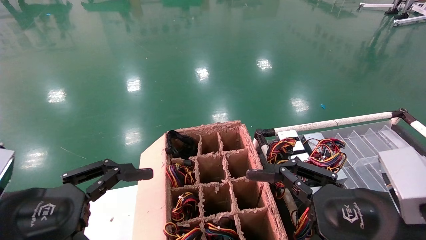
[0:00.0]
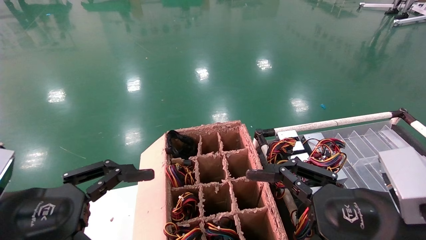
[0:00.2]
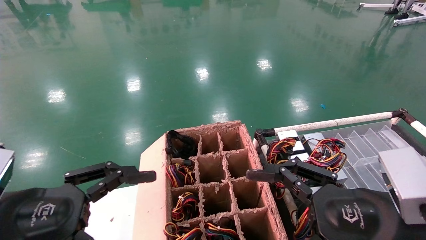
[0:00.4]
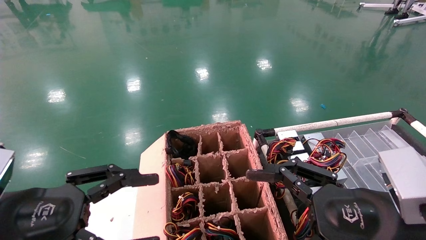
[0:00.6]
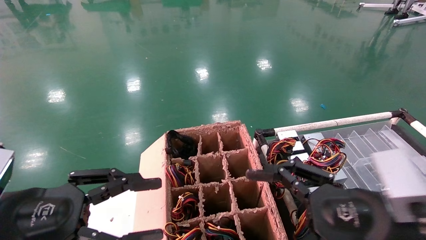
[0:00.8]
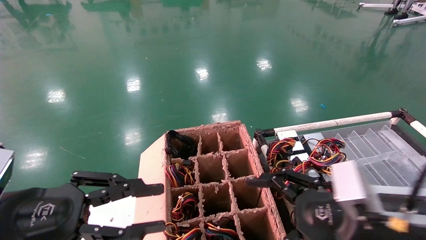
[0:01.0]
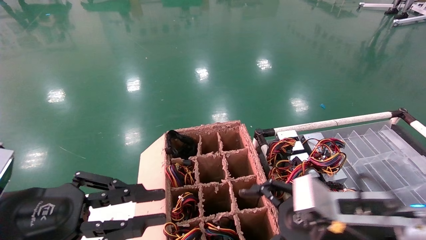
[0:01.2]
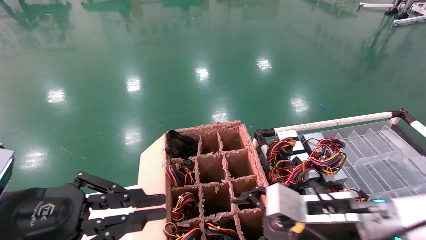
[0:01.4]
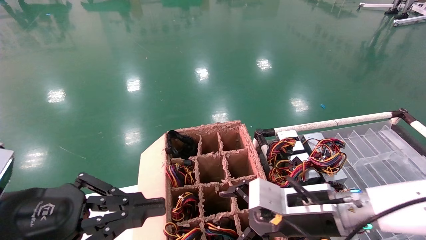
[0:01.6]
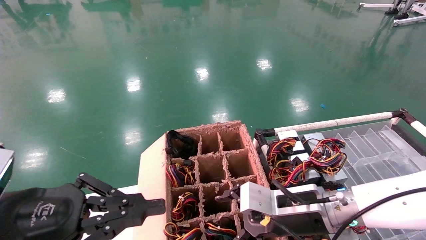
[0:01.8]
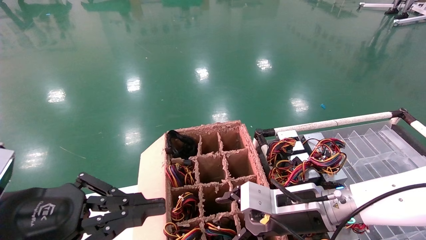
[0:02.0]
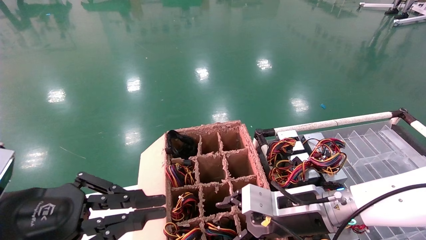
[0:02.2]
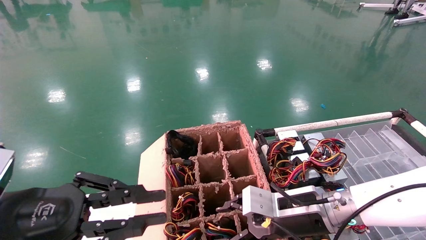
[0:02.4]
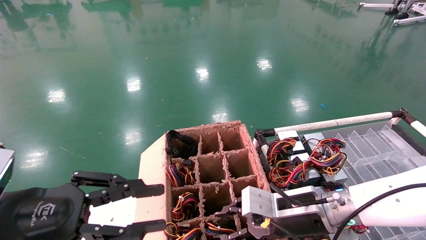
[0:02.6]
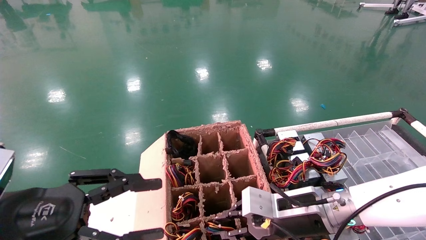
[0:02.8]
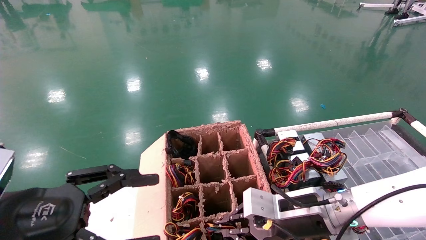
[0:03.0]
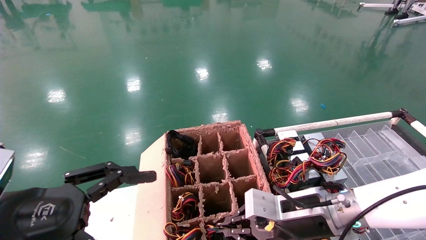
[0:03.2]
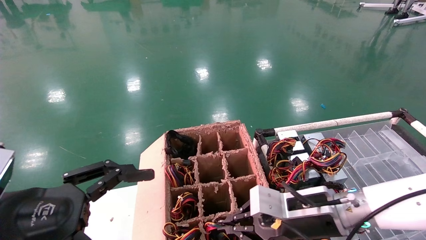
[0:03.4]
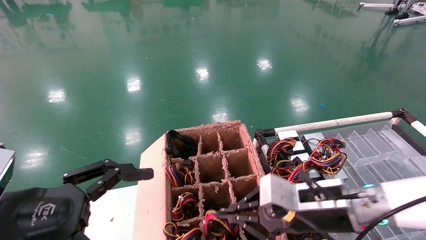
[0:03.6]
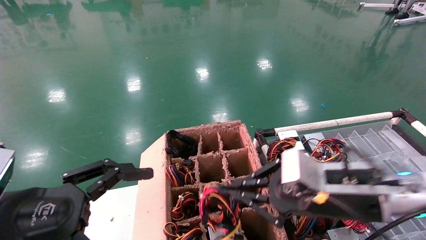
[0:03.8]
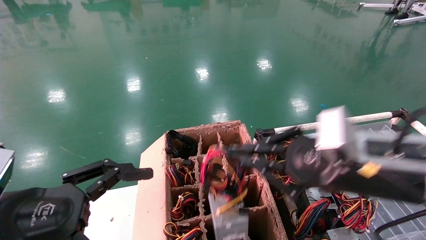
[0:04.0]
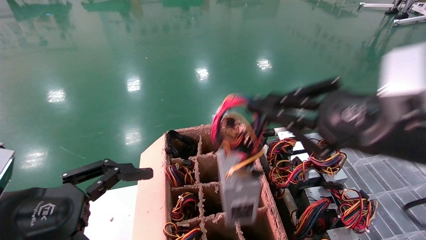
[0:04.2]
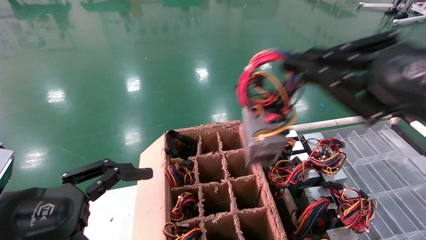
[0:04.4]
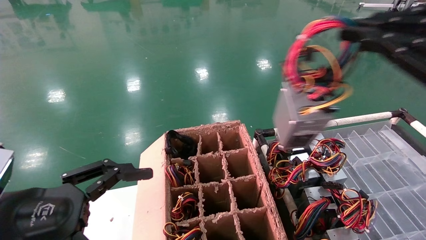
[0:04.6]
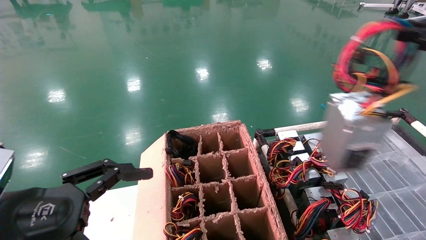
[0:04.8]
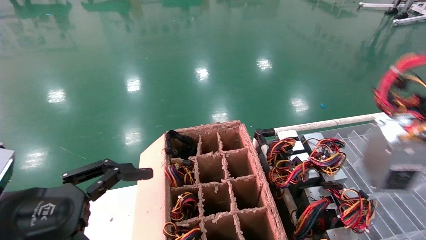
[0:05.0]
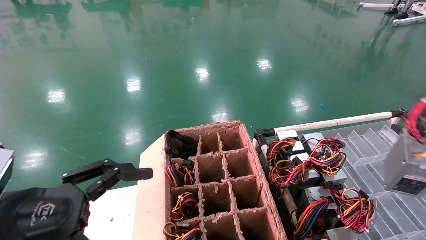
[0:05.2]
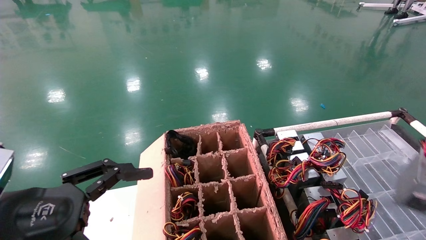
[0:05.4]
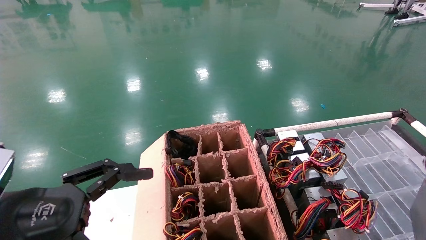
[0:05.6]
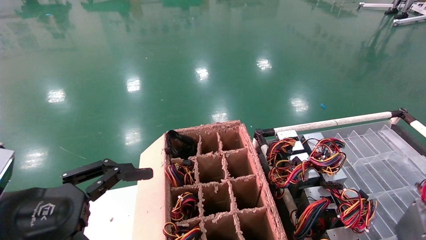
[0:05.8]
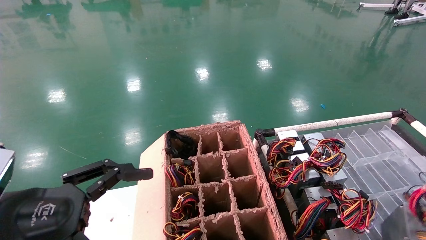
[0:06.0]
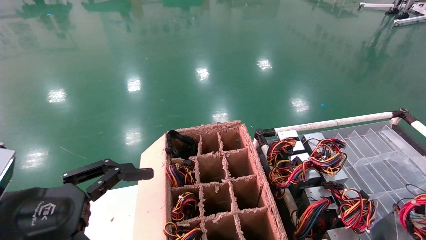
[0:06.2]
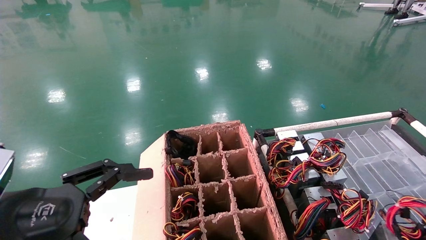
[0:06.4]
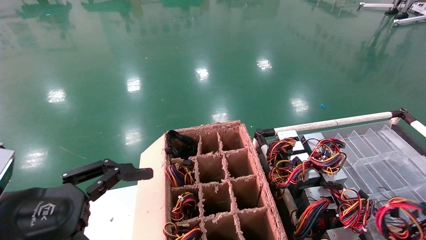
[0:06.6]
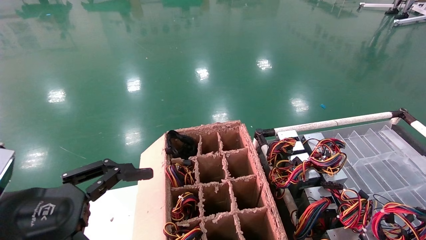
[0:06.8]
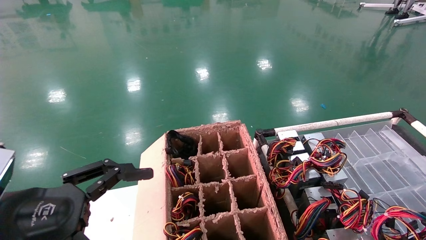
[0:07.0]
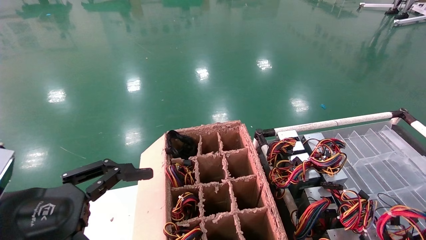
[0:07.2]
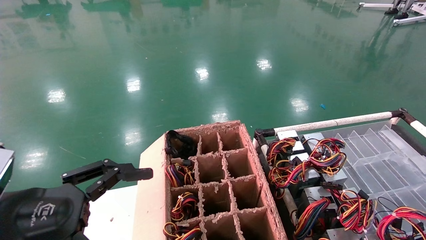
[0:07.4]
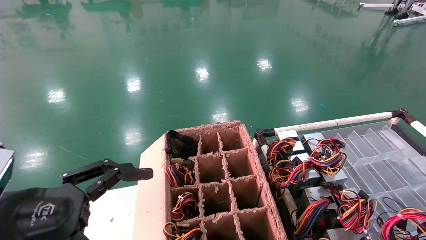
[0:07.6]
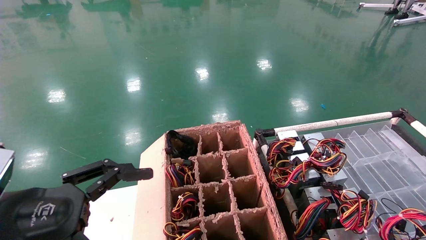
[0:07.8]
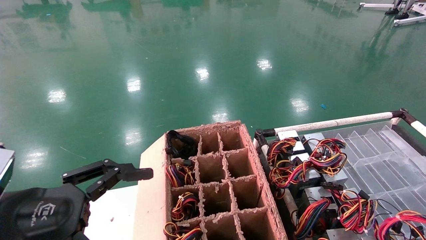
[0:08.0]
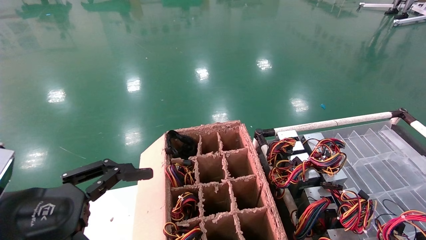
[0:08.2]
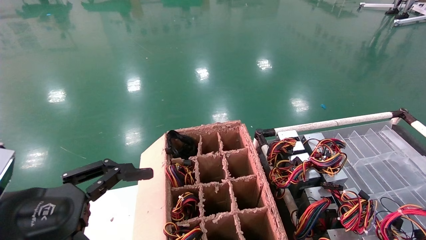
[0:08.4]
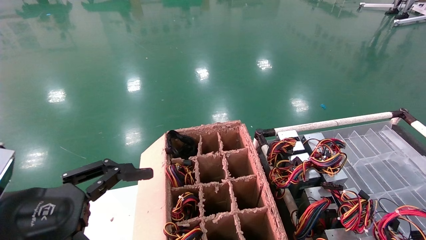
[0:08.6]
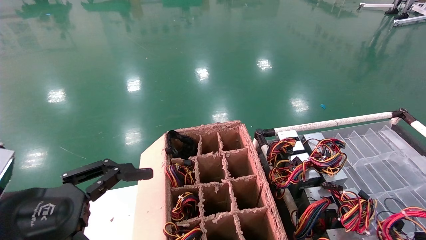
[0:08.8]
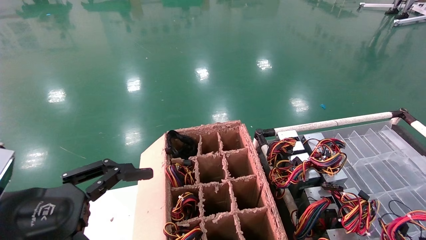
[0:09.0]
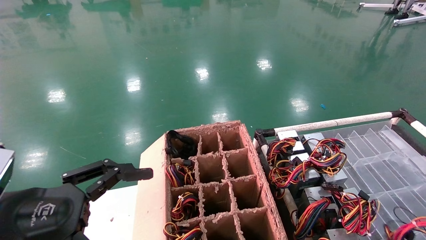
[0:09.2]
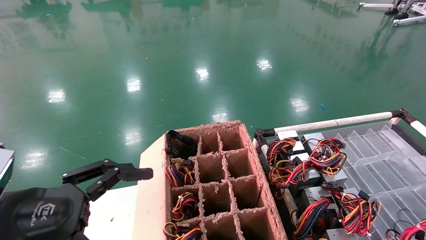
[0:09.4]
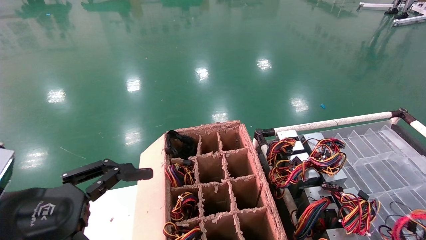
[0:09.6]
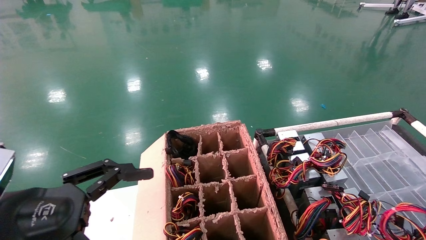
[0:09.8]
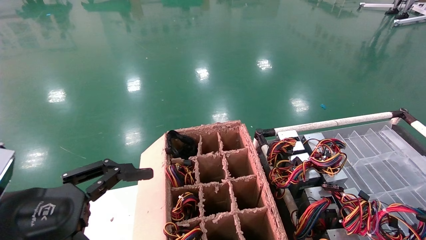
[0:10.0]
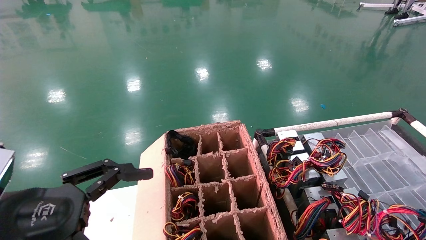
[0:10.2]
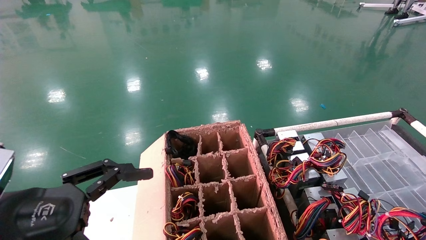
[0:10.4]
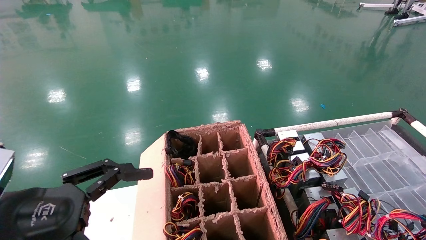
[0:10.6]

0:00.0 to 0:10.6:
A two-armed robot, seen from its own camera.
Step, 0:01.0 to 0:03.0: Grab and lift the power supply from the large box.
0:00.0 to 0:01.6: The left gripper closes up. The right gripper moves forward, downward and to the left, roughly 15 cm.
0:01.6 to 0:03.0: The left gripper opens; the right gripper closes up.
0:03.0 to 0:04.6: The left gripper opens up, while the right gripper is displaced upward, to the right and backward by roughly 35 cm.
0:04.6 to 0:06.0: The right gripper heads to the right and downward, covering some 20 cm.
0:06.0 to 0:07.6: The grippers make only small movements.
0:07.6 to 0:10.6: The grippers stay close to where they were, moving slightly.

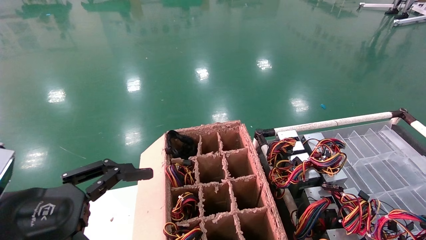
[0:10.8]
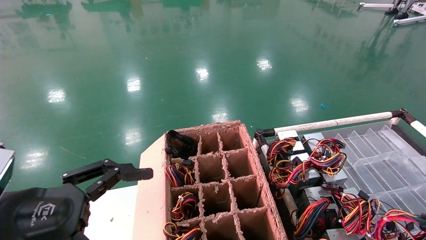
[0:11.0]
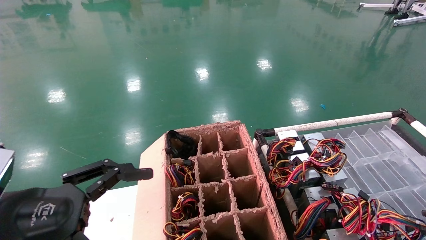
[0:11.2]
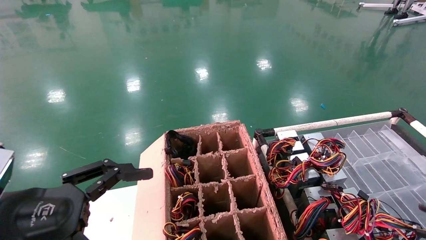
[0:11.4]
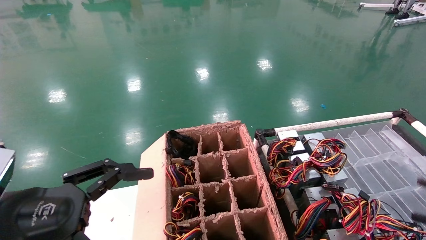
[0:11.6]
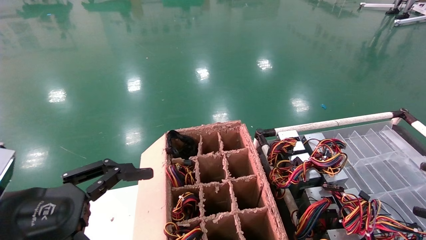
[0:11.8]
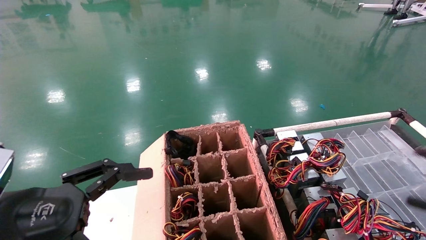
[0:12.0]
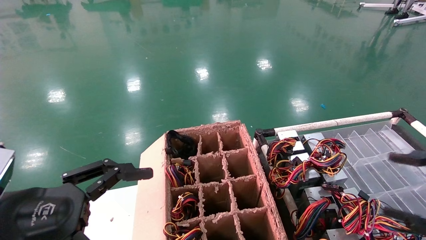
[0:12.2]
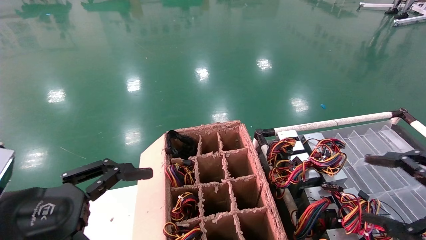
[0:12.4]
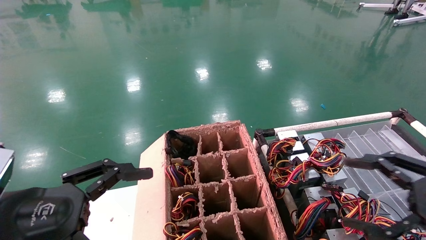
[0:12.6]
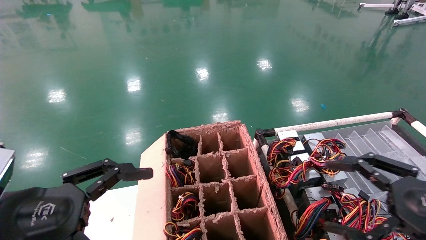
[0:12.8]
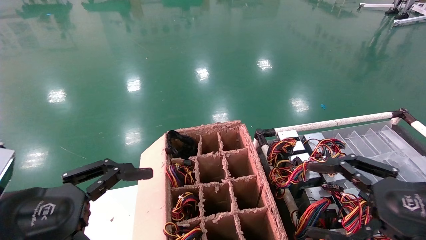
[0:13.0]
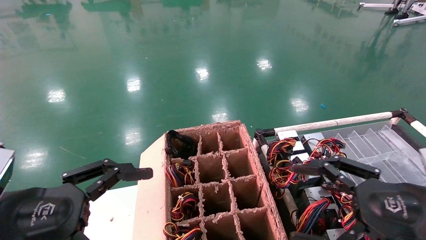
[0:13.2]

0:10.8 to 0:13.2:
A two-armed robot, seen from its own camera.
0:10.8 to 0:12.0: The right gripper moves to the left and upward, some 10 cm, and opens its fingers.
0:12.0 to 0:13.2: The right gripper goes approximately 15 cm to the left.

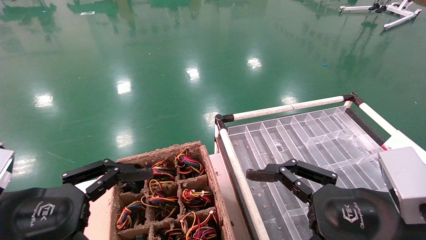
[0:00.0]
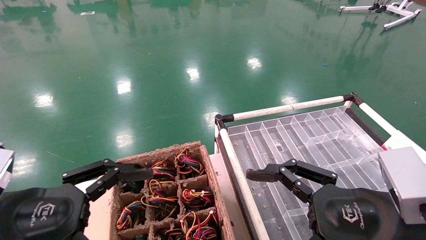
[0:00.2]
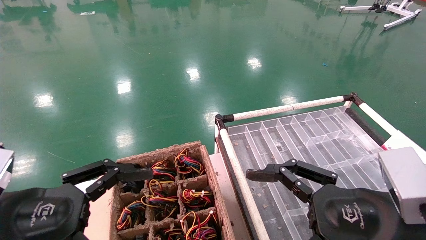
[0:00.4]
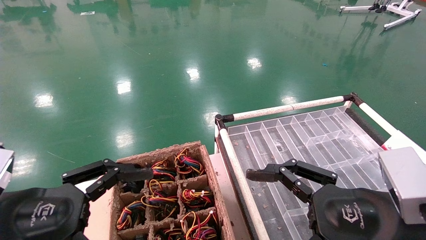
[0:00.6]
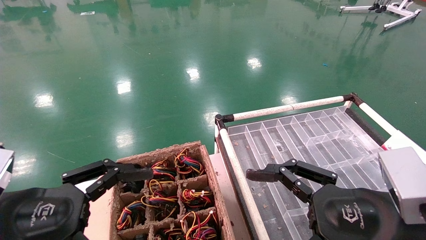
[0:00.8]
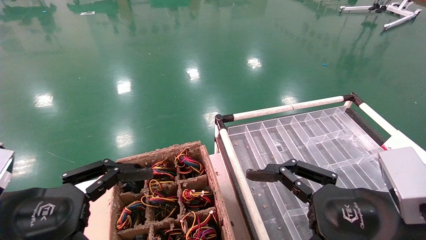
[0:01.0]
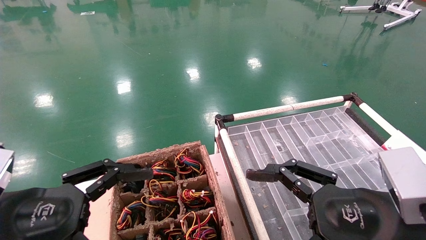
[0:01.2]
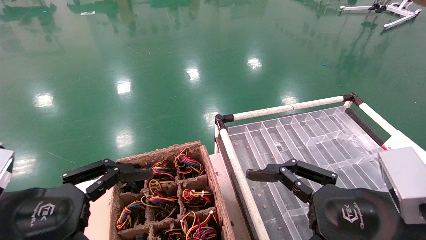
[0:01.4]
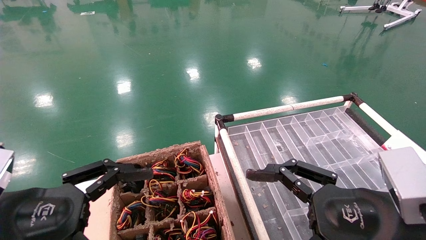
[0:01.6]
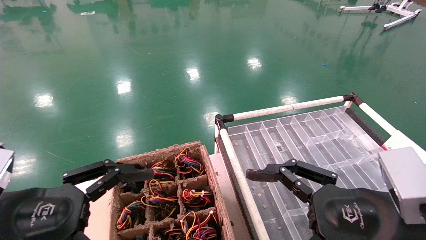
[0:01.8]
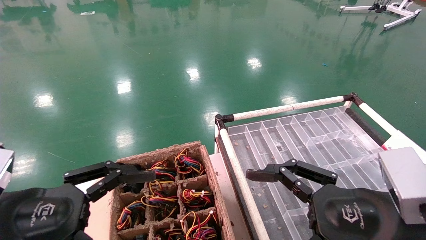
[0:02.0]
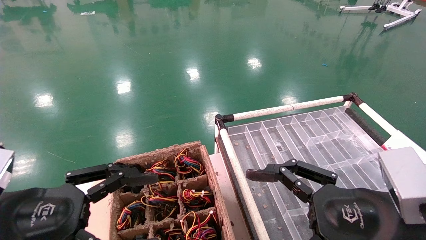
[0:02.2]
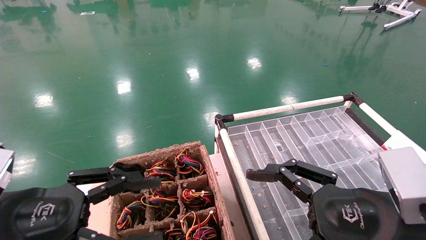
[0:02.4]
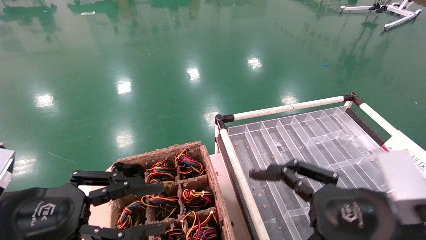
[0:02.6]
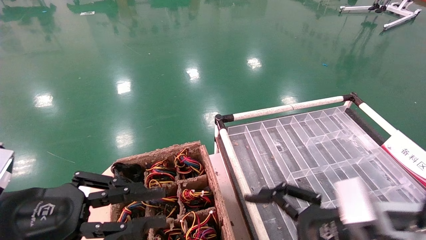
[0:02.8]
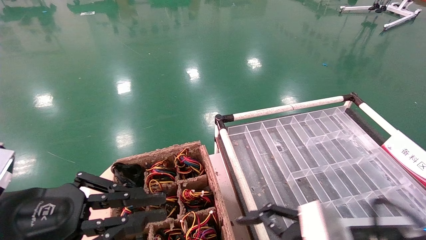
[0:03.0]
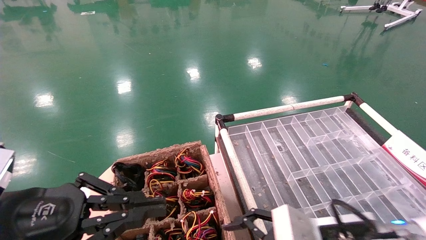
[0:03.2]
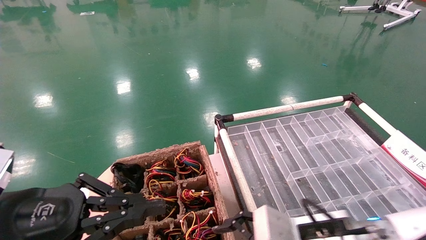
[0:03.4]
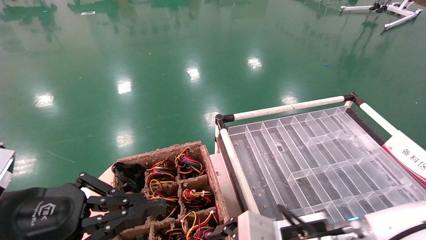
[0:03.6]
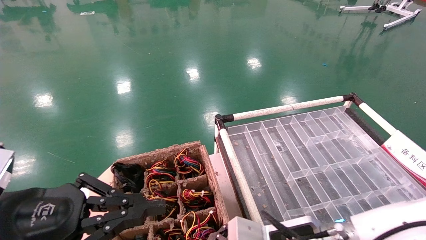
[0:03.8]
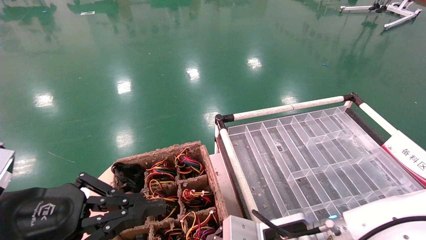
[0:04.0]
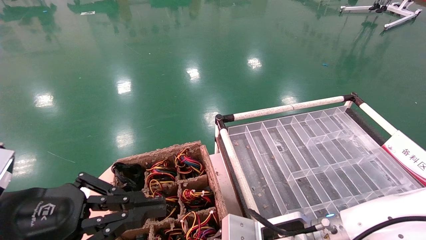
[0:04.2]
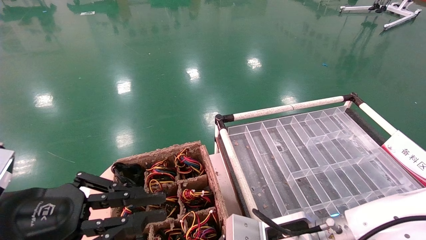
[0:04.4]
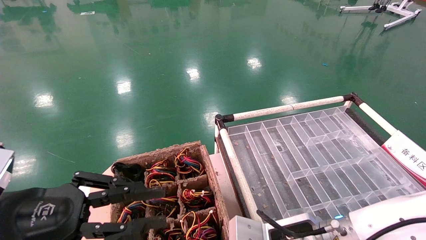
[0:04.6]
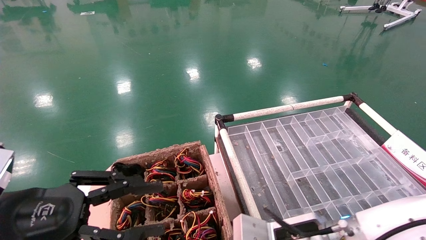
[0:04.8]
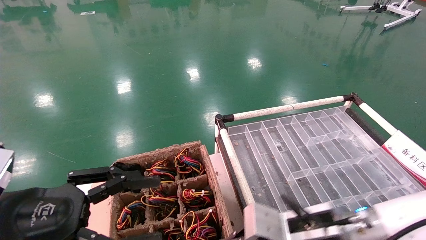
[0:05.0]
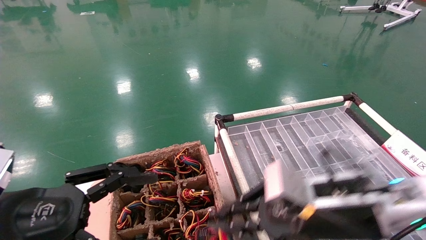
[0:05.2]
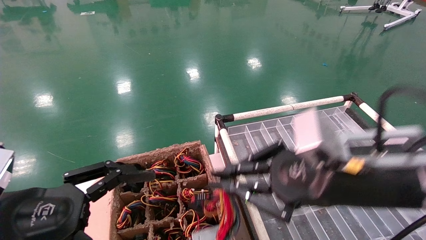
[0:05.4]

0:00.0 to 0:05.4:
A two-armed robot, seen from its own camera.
Step, 0:02.0 to 0:04.8: Grab and lift the power supply from the large box.
0:00.0 to 0:01.4: Both grippers stay put.
0:01.4 to 0:02.8: The left gripper closes up.
0:02.8 to 0:04.0: The right gripper is displaced to the left, forward and downward by roughly 10 cm. The left gripper closes.
0:04.0 to 0:05.4: The left gripper opens up; the right gripper goes roughly 15 cm upward, and closes its fingers.
